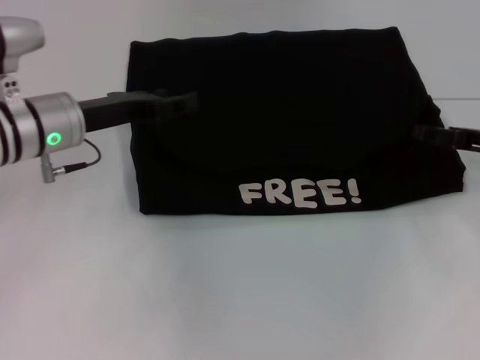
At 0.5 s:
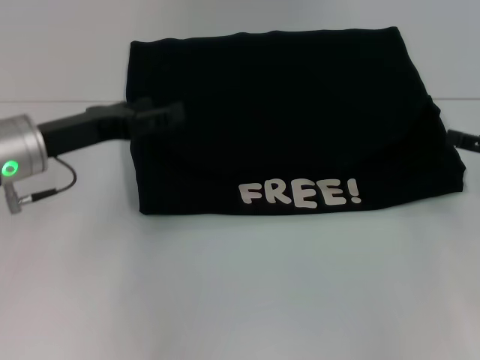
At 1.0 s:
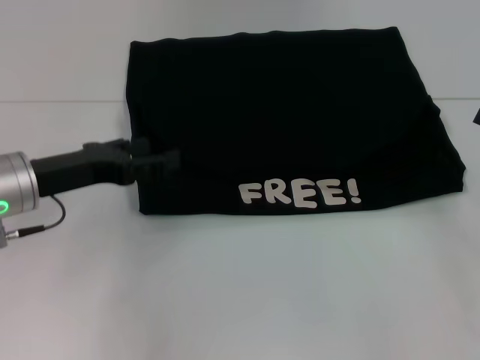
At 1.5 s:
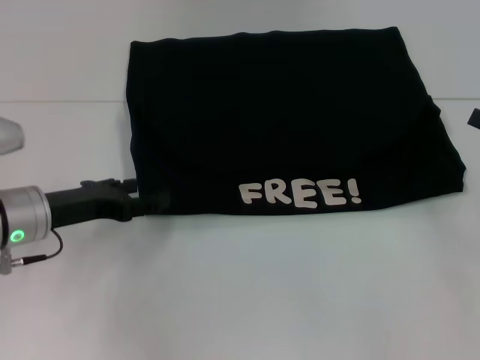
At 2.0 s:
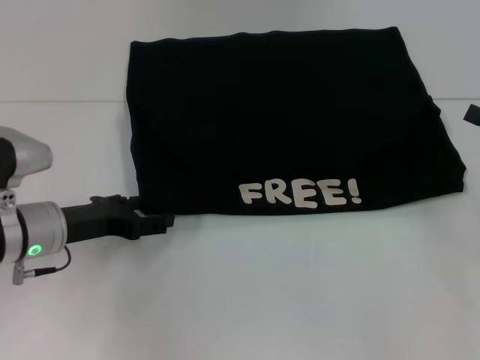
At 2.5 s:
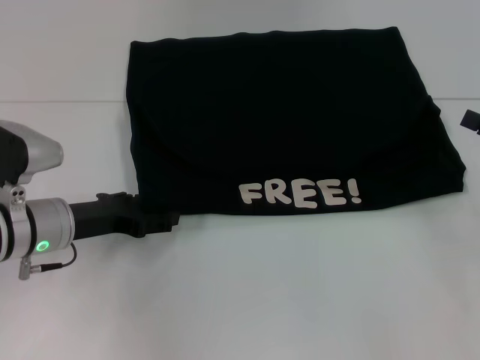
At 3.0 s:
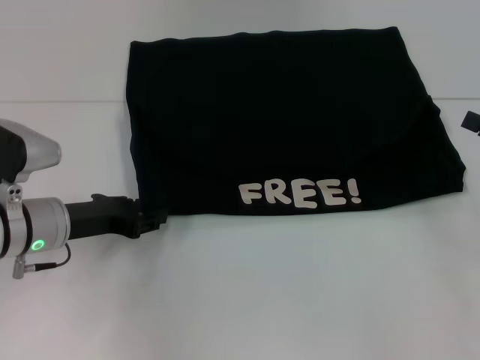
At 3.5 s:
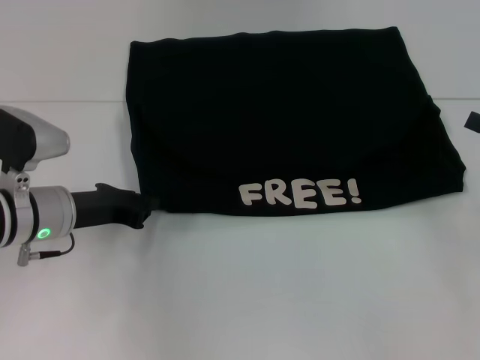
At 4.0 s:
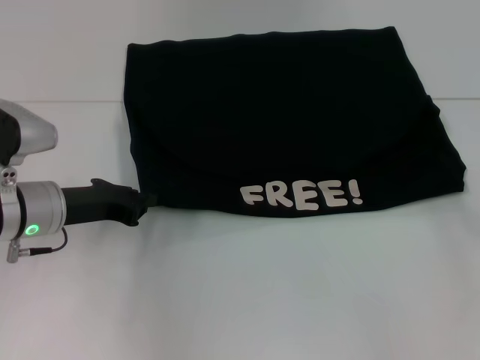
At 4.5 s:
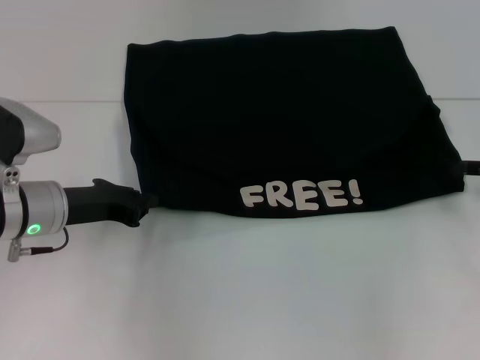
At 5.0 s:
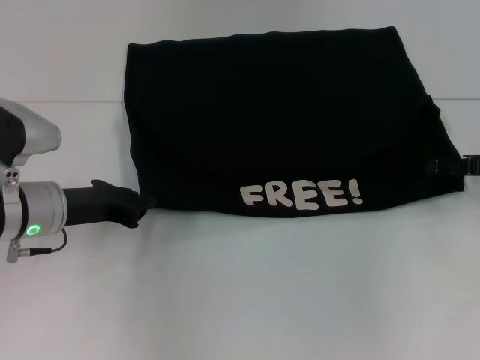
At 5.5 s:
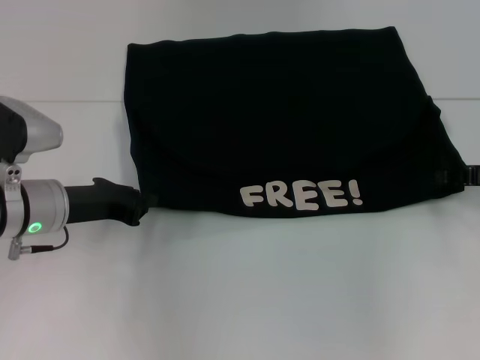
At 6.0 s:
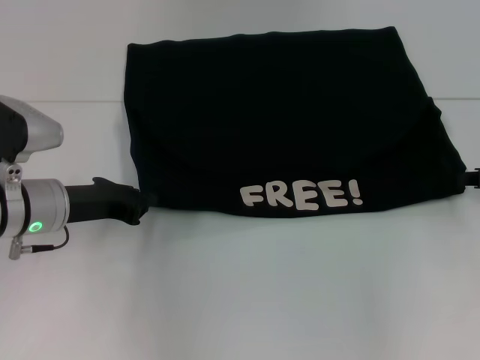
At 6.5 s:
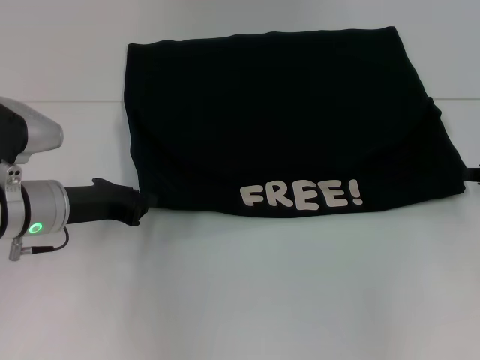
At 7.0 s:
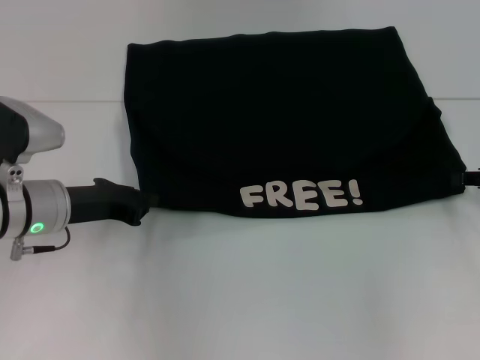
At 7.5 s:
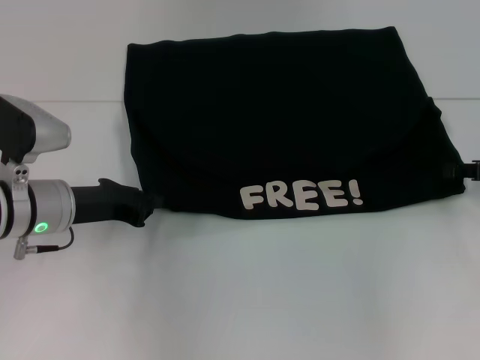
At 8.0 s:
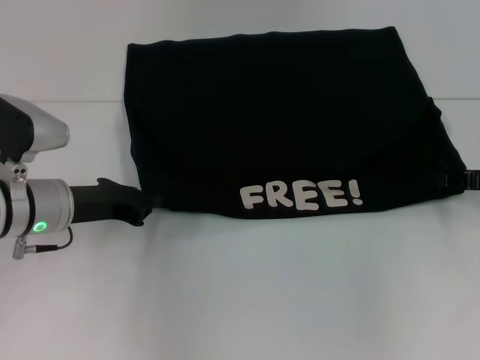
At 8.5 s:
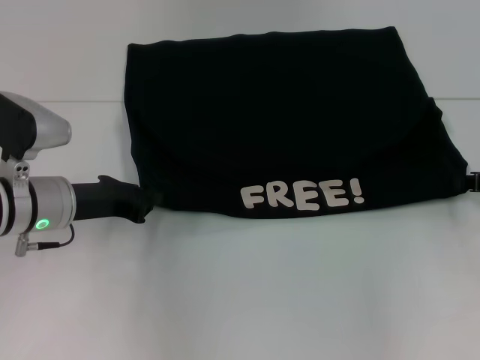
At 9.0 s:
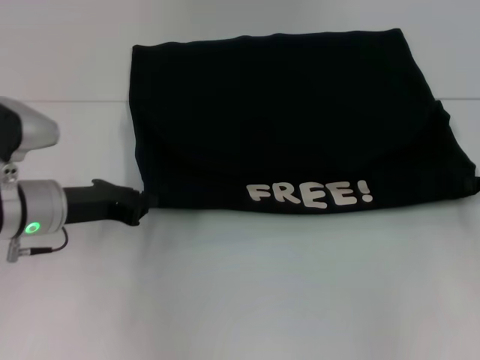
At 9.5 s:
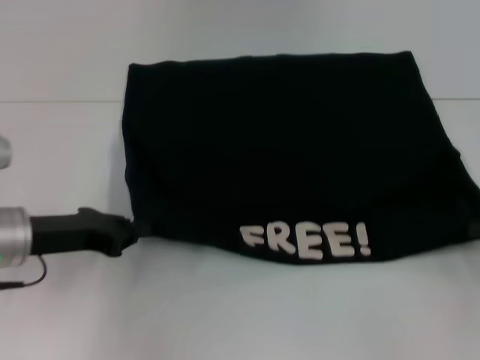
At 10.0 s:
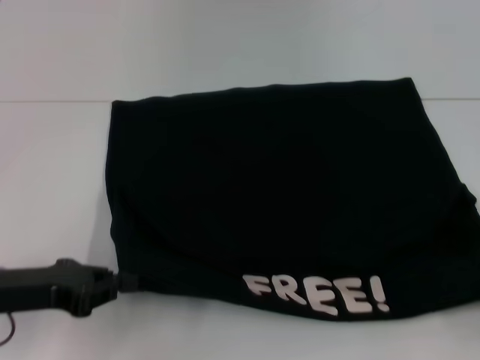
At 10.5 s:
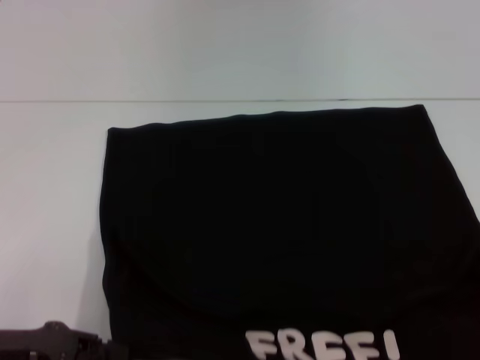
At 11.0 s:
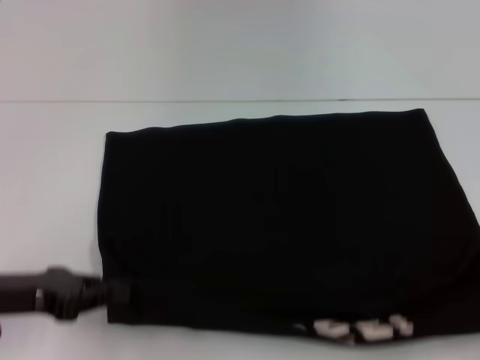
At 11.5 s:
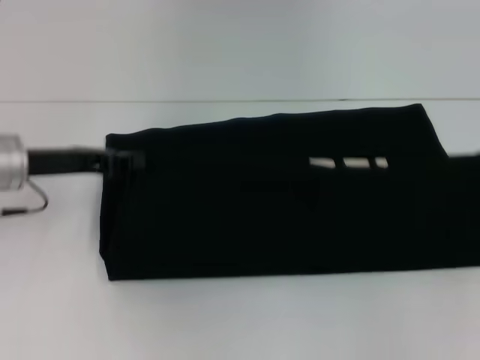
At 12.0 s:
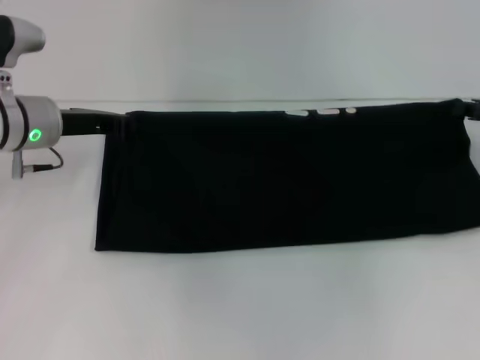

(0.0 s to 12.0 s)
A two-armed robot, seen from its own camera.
Step, 0.0 s - 10.0 s: Pull the clothes with your left hand.
Step, 0.0 s - 10.0 s: Pull the clothes with your right hand.
0.0 s - 2.0 s: The left gripper goes approximately 10 cm downward and backward. The right gripper moves backward, about 5 cm.
2.0 s - 4.0 s: The left gripper closes.
4.0 s - 6.0 s: The right gripper goes roughly 10 cm forward and to the left, and closes.
6.0 s - 8.0 s: Both grippers stay about where they are.
8.0 s - 10.0 s: The right gripper moves backward, some 15 cm, and closes up. Meanwhile the left gripper shifts some 10 cm backward and to the left.
10.0 s - 12.0 s: The two grippers go some 20 cm forward.

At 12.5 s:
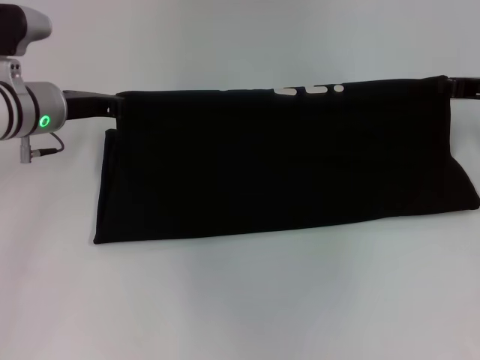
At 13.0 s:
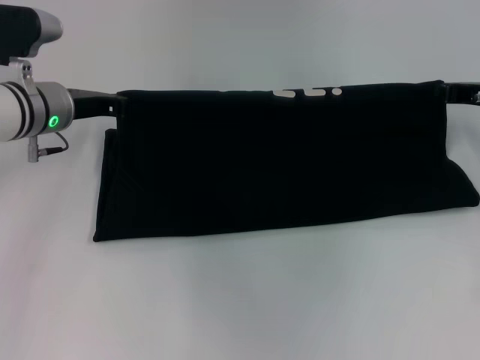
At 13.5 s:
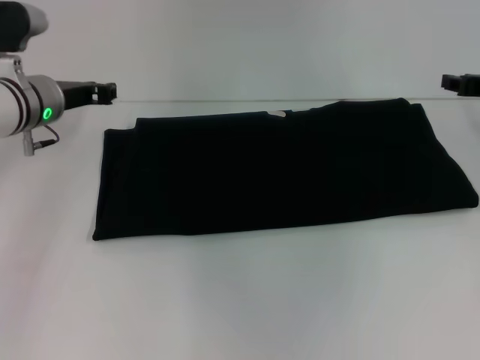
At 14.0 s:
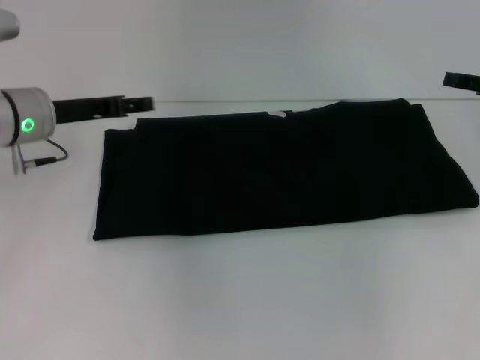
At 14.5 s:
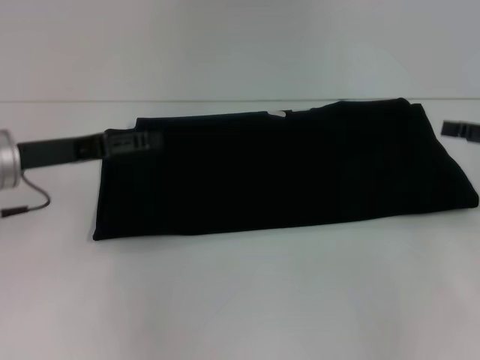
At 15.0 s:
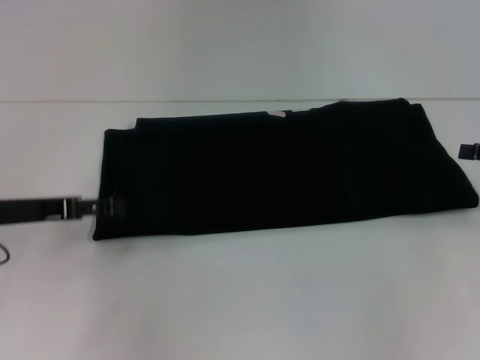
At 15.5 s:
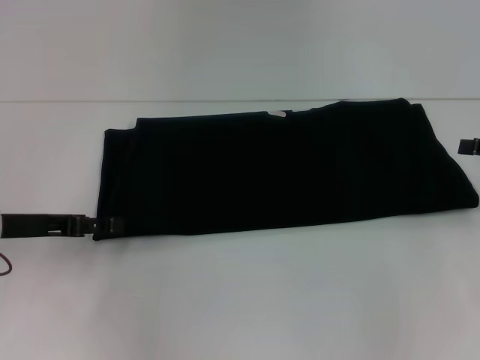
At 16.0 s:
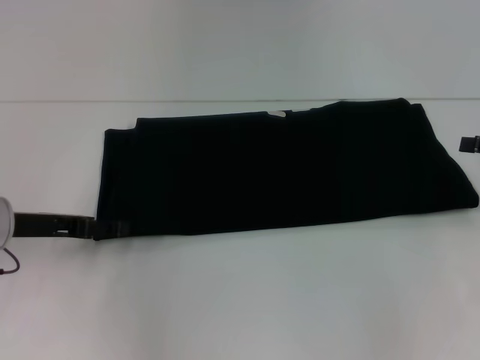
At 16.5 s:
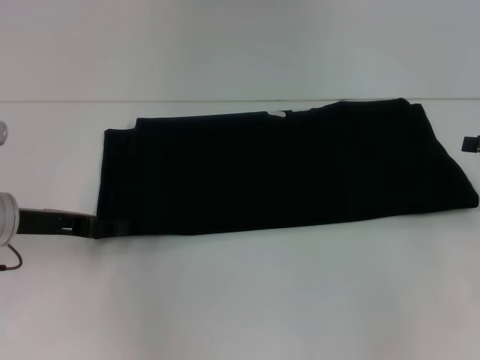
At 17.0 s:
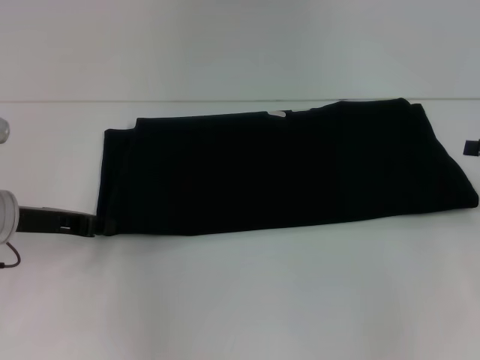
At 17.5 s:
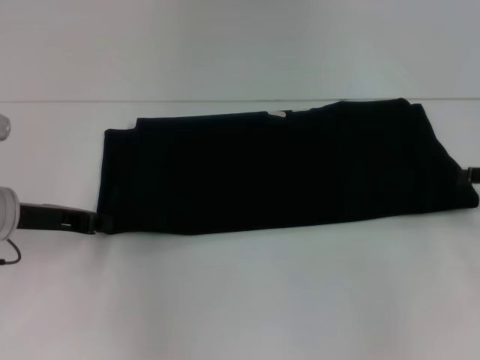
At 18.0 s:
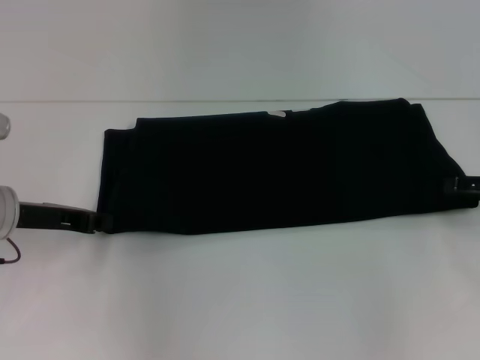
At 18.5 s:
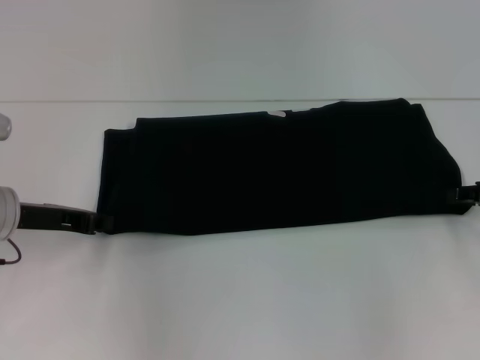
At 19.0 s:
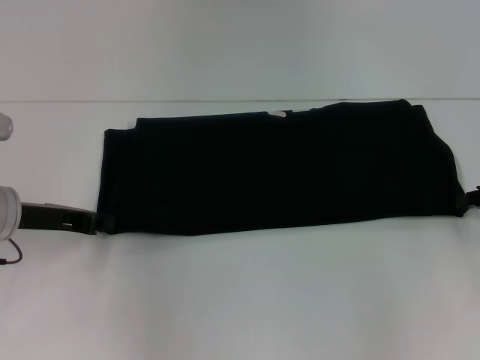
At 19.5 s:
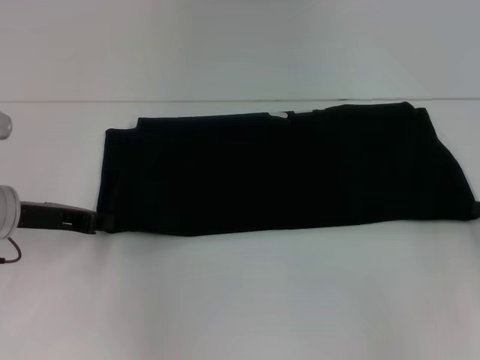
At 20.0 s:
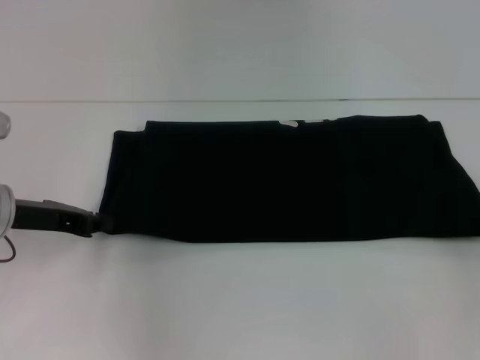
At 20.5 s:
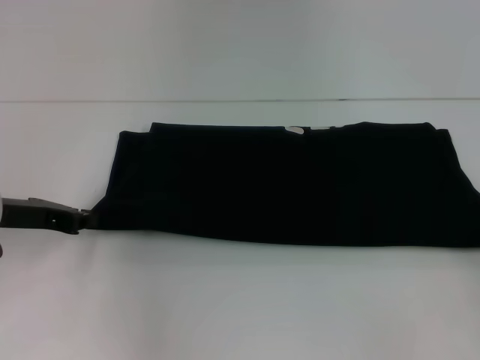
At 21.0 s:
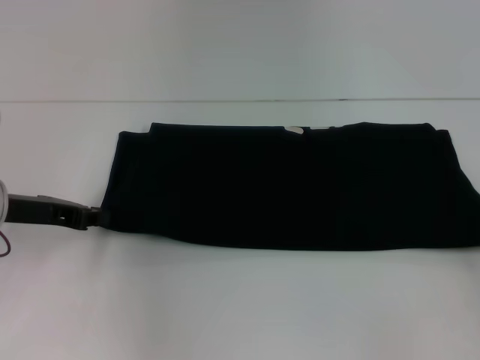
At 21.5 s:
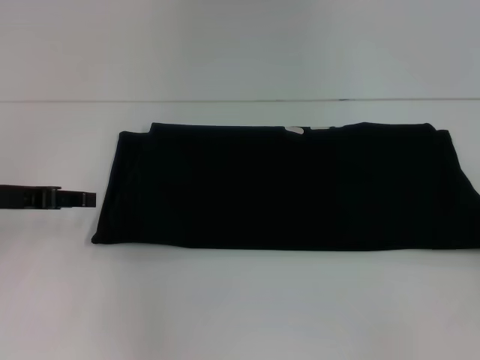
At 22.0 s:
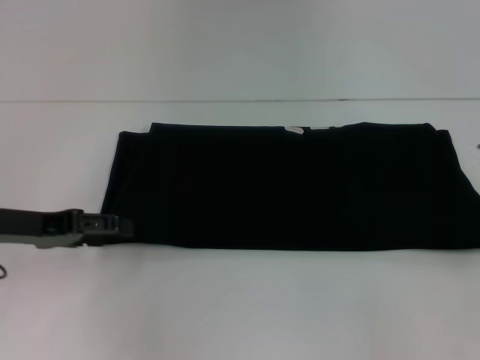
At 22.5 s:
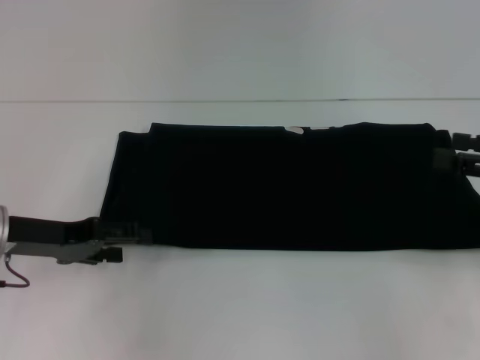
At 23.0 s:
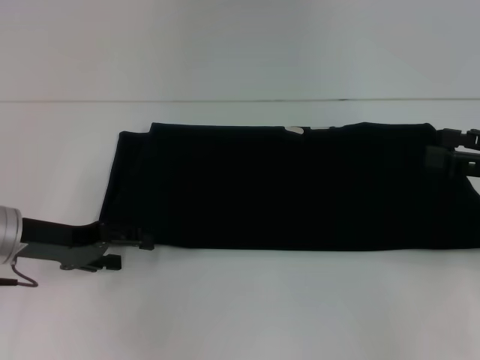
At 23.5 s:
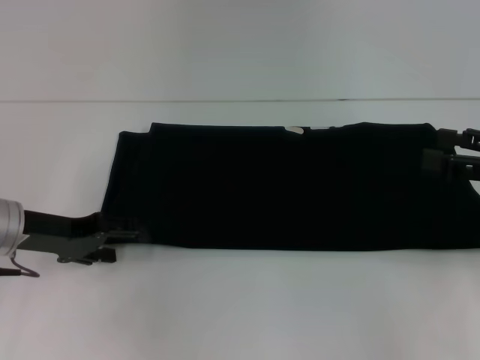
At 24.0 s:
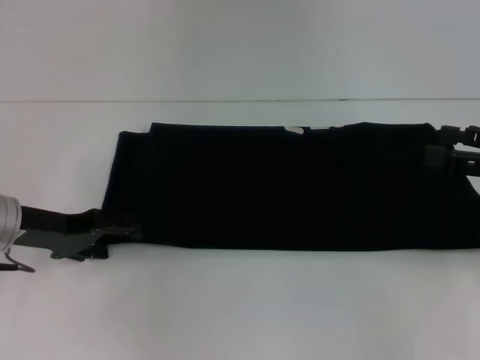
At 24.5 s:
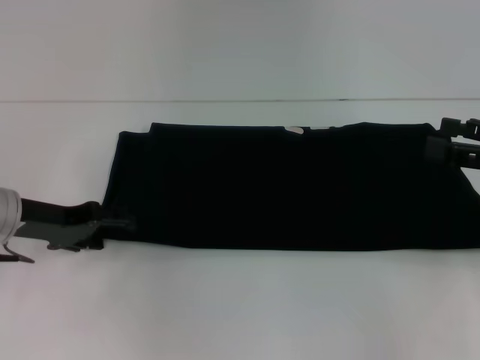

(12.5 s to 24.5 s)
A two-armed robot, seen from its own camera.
12.5 s - 14.5 s: The grippers both shift backward by roughly 10 cm. The left gripper opens its fingers, while the right gripper opens up.
14.5 s - 16.5 s: The left gripper changes place by approximately 5 cm.
16.5 s - 18.5 s: The left gripper closes its fingers.
18.5 s - 20.5 s: The right gripper goes about 10 cm backward, and closes up.
20.5 s - 22.5 s: The left gripper opens its fingers; the right gripper heads upward, covering some 10 cm, and opens up.
22.5 s - 24.5 s: The grippers make only small movements.

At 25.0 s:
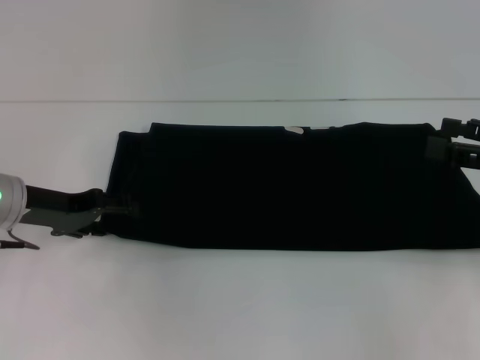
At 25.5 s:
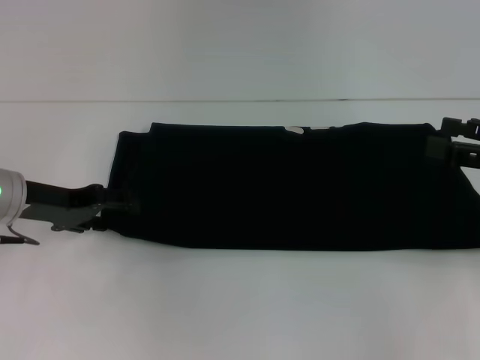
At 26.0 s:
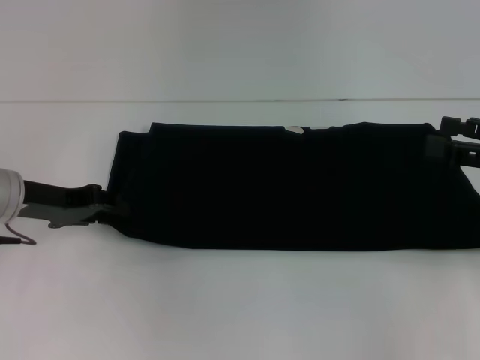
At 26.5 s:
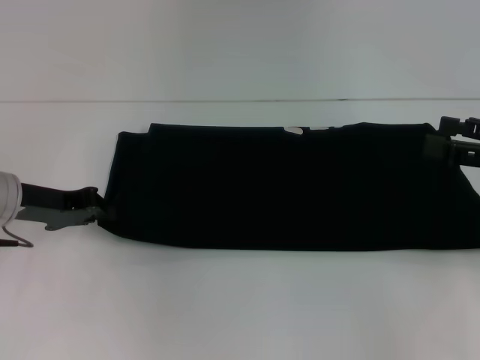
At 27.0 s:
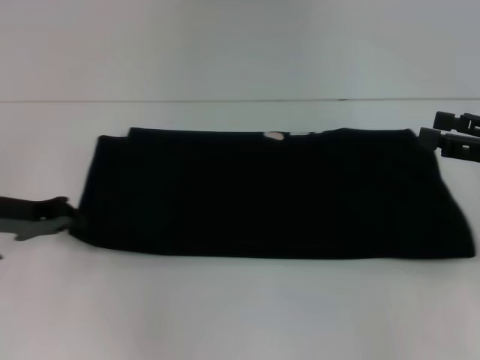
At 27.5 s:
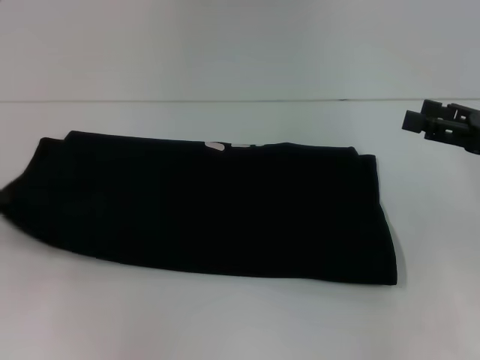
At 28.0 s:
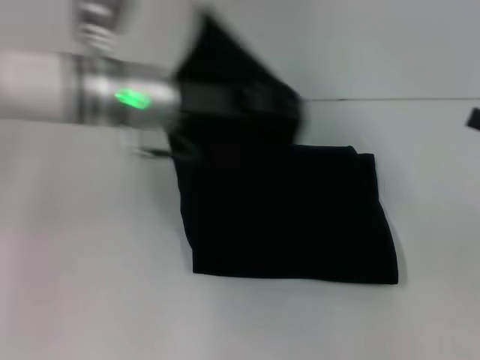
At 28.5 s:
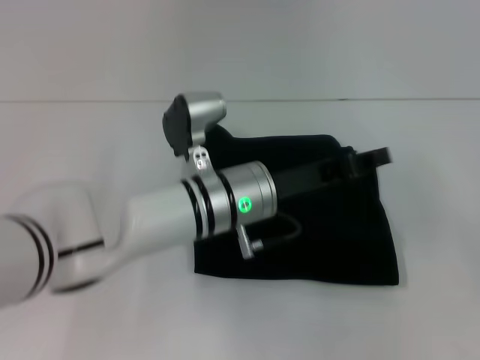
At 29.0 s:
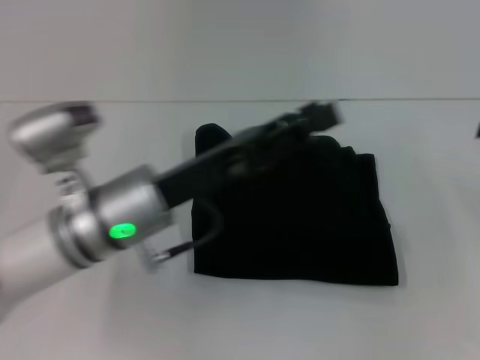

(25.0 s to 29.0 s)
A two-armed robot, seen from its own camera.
Step, 25.0 s - 28.5 s: Fold the clothes with your left hand.
25.0 s - 27.0 s: The left gripper closes up.
27.0 s - 29.0 s: The right gripper heads to the right, covering roughly 5 cm. The left gripper swings left and right, some 35 cm each way, with 2 reversals, and opens.
